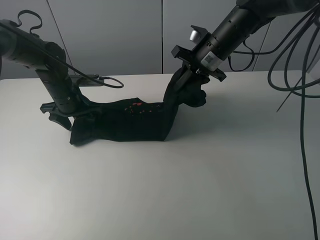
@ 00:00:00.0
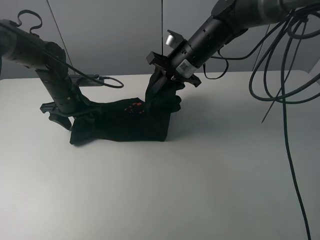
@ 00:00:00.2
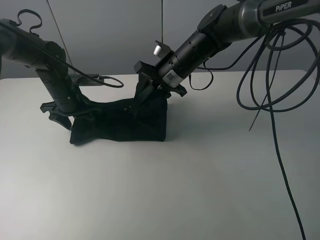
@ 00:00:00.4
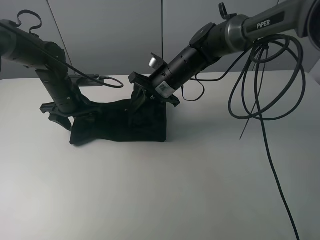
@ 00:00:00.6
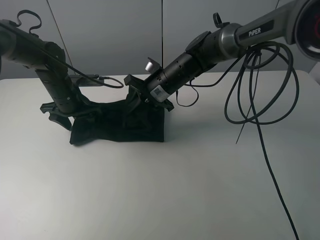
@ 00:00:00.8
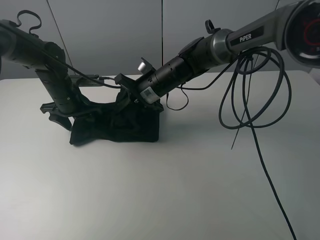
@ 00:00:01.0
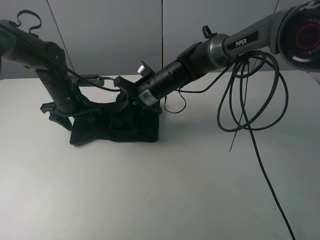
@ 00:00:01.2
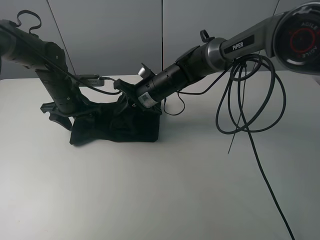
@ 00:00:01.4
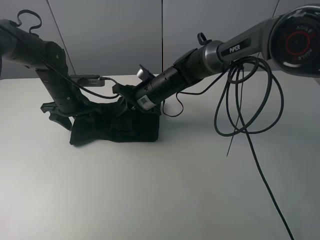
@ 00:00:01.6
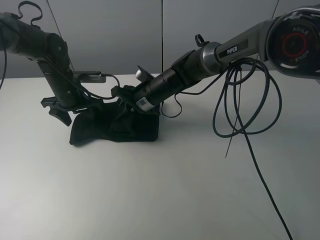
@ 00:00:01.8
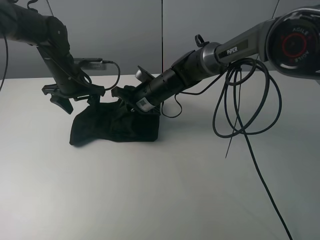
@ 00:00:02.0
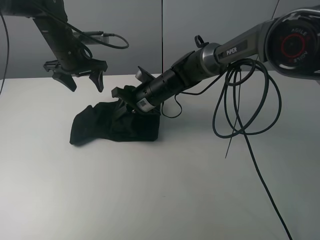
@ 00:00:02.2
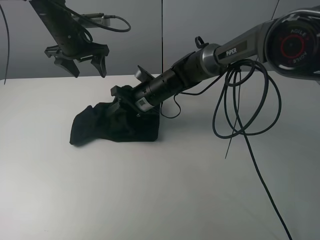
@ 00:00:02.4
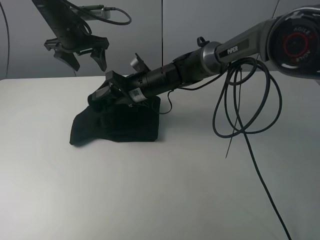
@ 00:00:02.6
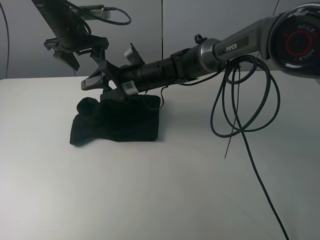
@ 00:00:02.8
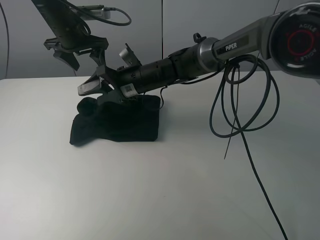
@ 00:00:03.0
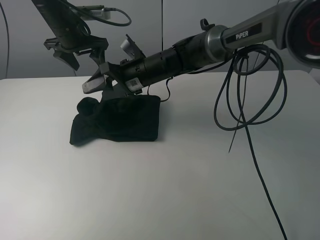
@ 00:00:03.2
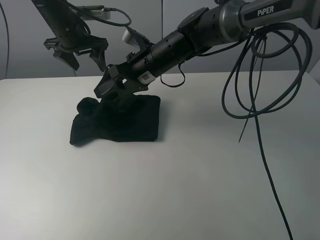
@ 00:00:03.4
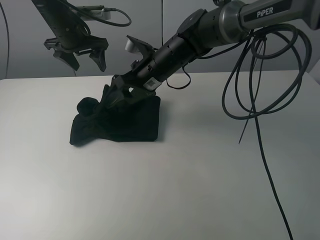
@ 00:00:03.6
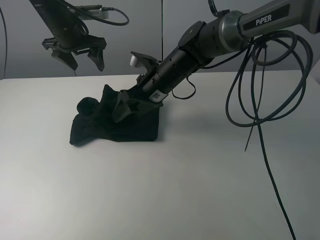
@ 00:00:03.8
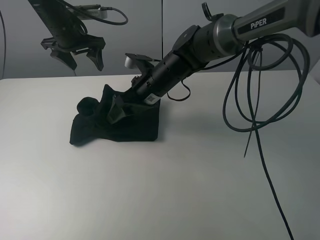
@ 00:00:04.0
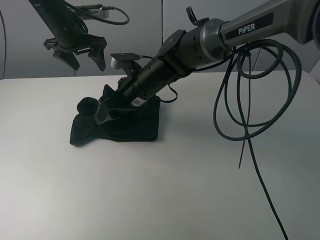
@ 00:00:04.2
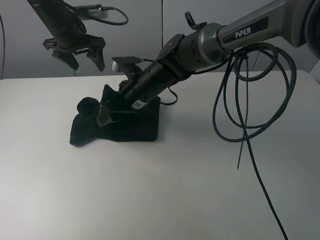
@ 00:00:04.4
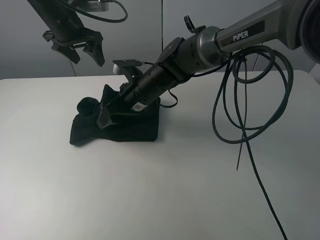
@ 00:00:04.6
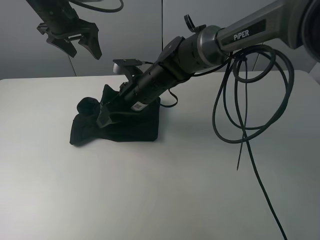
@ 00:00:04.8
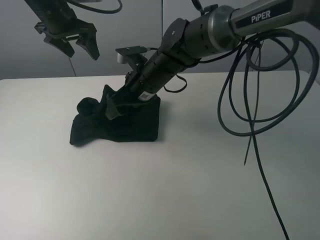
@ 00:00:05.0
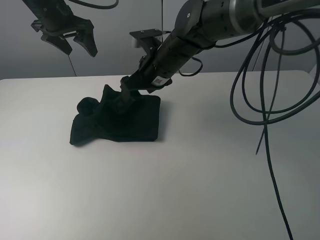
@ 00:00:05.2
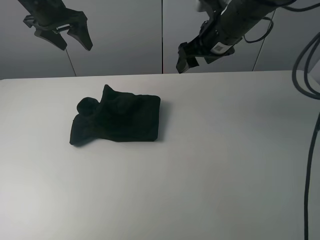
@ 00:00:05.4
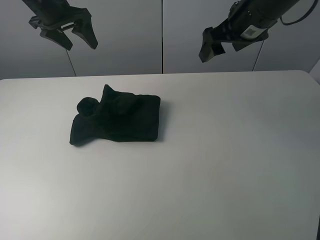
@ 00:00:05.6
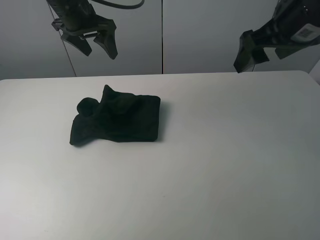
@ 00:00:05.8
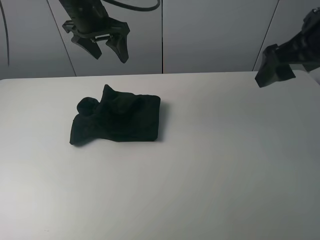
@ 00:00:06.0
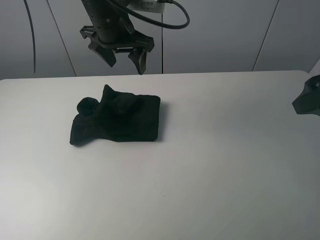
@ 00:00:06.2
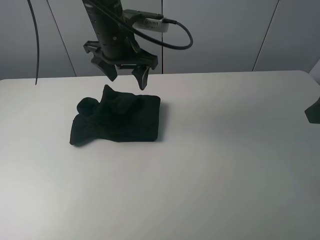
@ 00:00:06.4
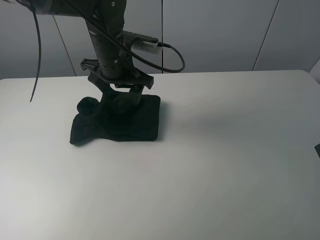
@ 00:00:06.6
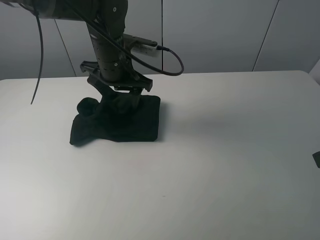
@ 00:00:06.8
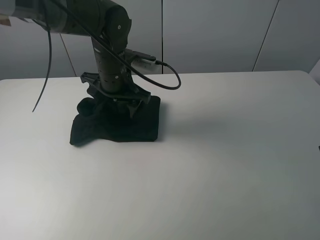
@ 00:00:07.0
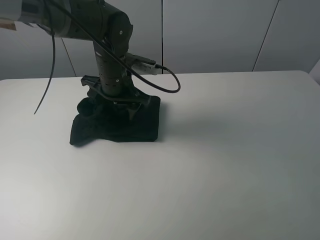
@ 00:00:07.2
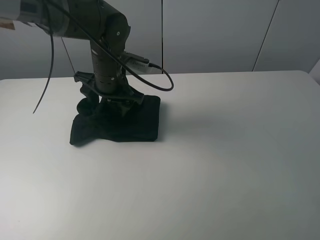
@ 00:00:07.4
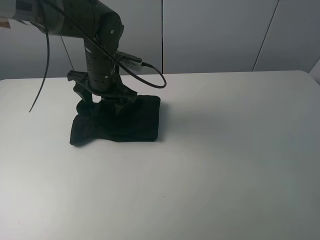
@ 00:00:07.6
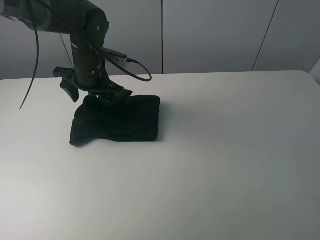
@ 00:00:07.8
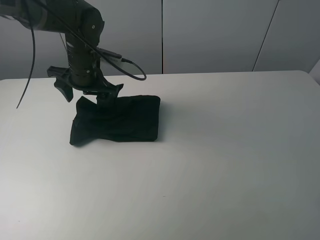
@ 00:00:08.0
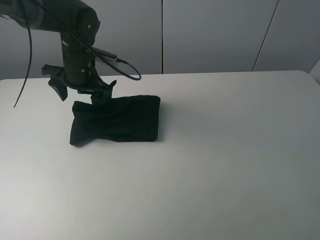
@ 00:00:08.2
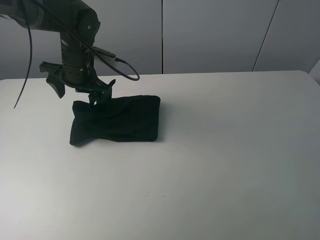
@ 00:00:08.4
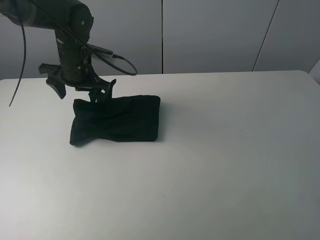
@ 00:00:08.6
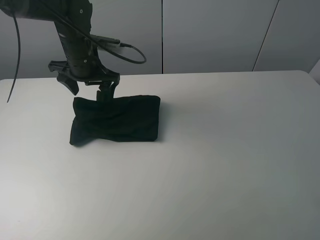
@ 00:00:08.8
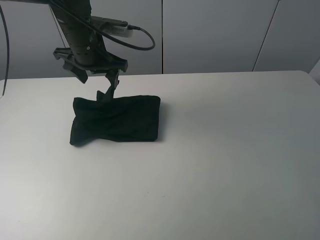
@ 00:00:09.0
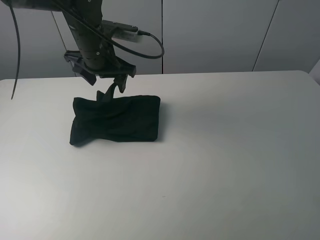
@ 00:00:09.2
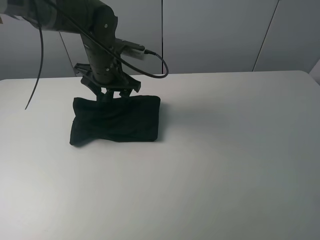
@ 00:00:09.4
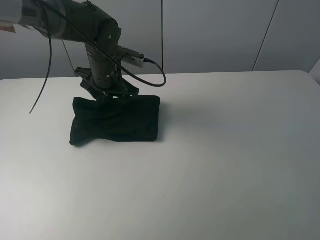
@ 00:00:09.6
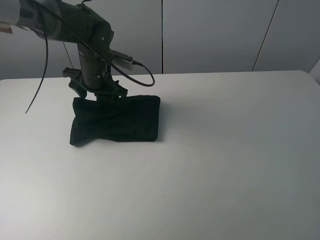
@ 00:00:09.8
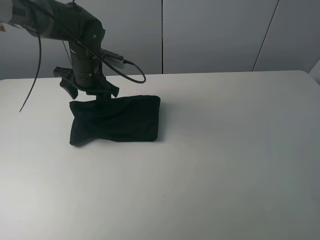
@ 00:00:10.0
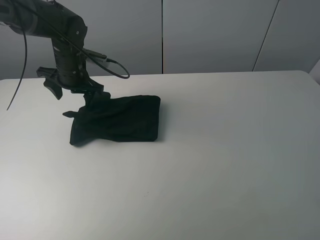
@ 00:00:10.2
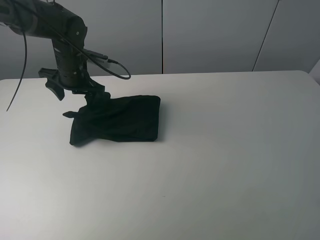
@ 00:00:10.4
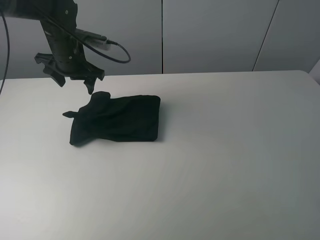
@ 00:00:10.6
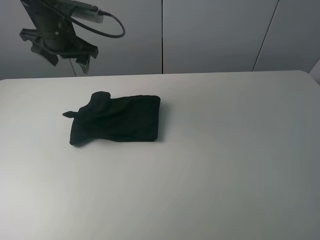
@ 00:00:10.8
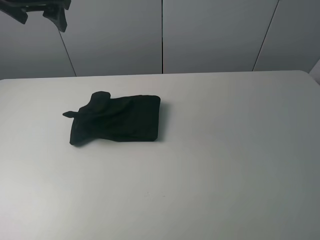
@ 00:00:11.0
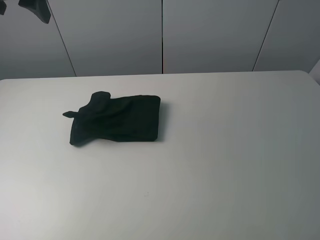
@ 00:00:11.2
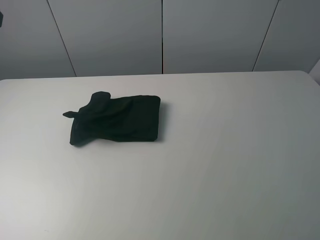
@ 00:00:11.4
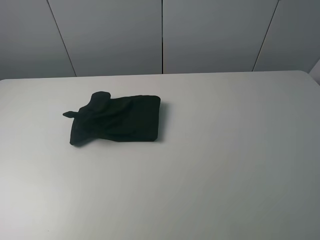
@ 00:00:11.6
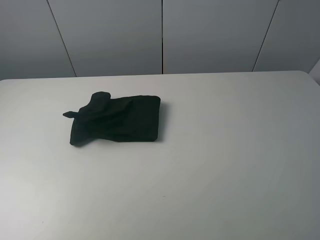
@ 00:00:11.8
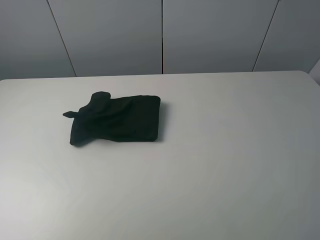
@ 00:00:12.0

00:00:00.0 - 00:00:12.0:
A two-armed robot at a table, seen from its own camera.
Task of the whole recording: fold the clothes on the table.
Step, 00:00:00.0 - 00:00:03.2: Fold the black T-shirt from right to left with right gripper.
Step, 00:00:03.4 - 00:00:09.0: Use the left gripper to tidy up the clothes.
00:00:00.0 - 00:00:01.6: The right gripper shifts roughly 15 cm to the left and downward.
00:00:01.6 - 00:00:03.0: The right gripper changes place by about 5 cm, and opens; the left gripper goes about 15 cm upward and forward.
00:00:04.4 - 00:00:06.0: The left gripper is displaced to the right, backward and upward by roughly 10 cm; the right gripper is displaced to the right, upward and backward by about 35 cm.
00:00:06.0 - 00:00:07.6: The left gripper is displaced downward by roughly 10 cm. Meanwhile the right gripper travels backward by about 15 cm.
00:00:07.6 - 00:00:09.0: The left gripper is displaced upward by about 5 cm.
00:00:09.0 - 00:00:10.4: The left gripper heads downward and to the left, covering roughly 10 cm.
00:00:10.4 - 00:00:12.0: The right gripper is displaced backward by roughly 10 cm. The left gripper goes some 40 cm backward and upward.

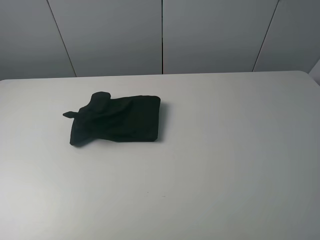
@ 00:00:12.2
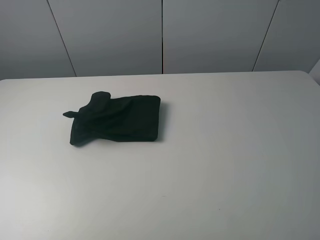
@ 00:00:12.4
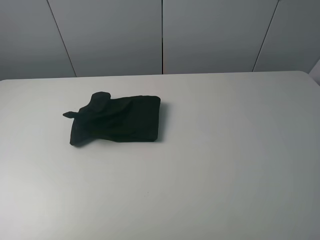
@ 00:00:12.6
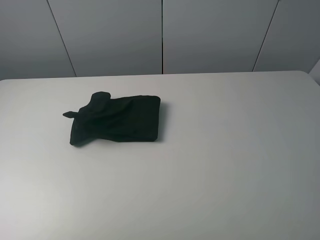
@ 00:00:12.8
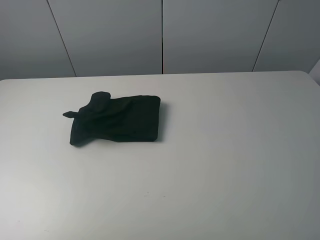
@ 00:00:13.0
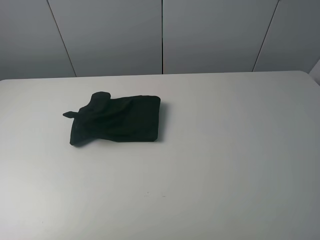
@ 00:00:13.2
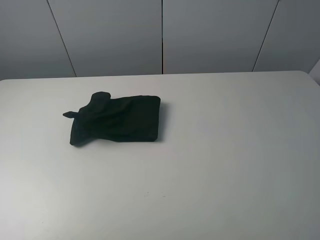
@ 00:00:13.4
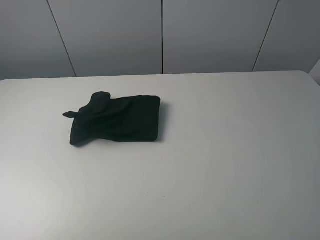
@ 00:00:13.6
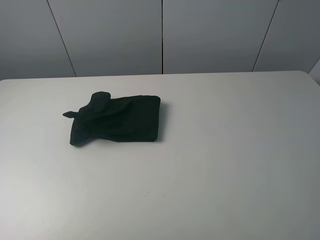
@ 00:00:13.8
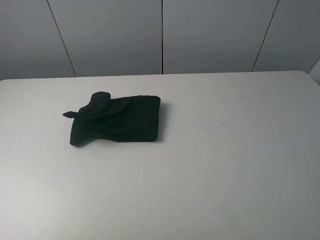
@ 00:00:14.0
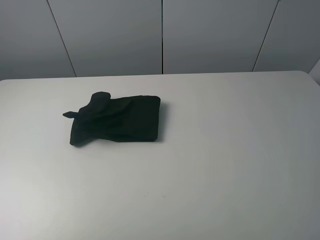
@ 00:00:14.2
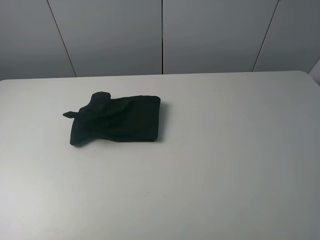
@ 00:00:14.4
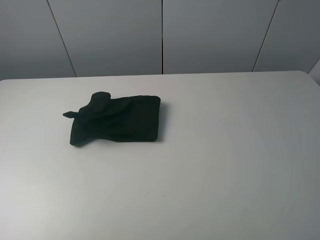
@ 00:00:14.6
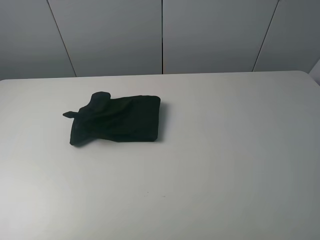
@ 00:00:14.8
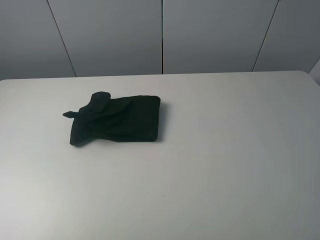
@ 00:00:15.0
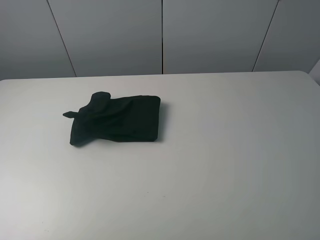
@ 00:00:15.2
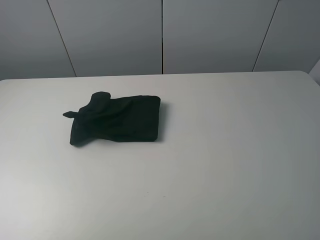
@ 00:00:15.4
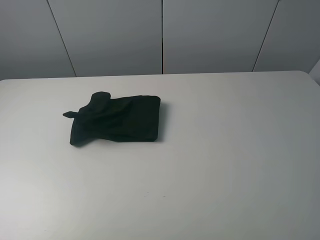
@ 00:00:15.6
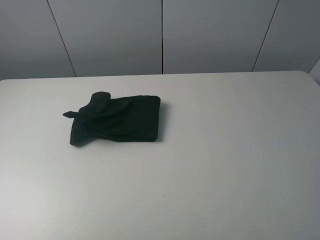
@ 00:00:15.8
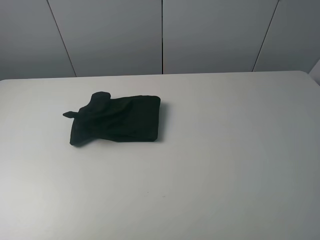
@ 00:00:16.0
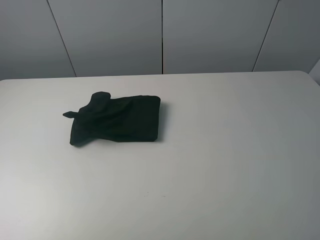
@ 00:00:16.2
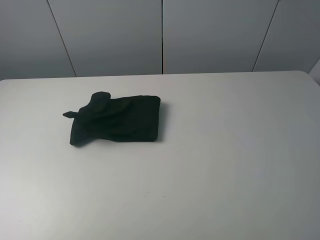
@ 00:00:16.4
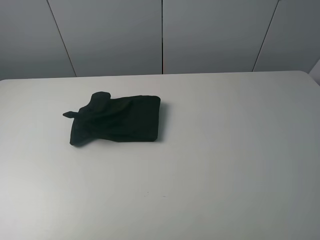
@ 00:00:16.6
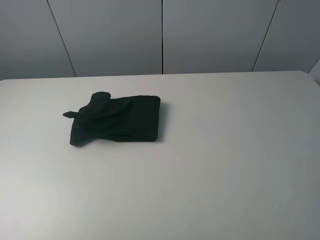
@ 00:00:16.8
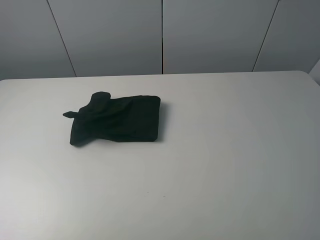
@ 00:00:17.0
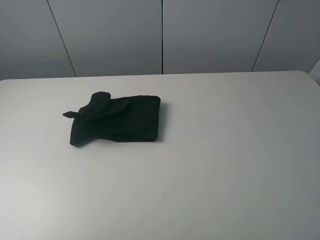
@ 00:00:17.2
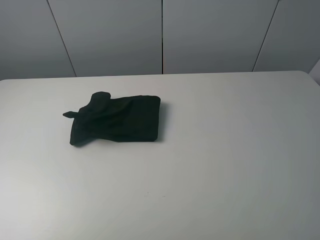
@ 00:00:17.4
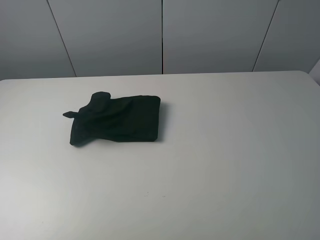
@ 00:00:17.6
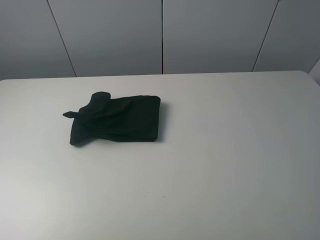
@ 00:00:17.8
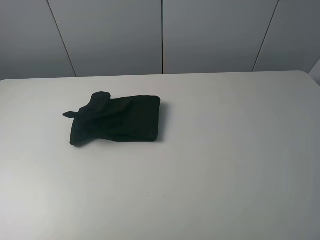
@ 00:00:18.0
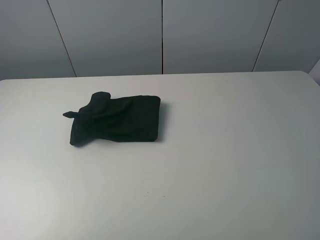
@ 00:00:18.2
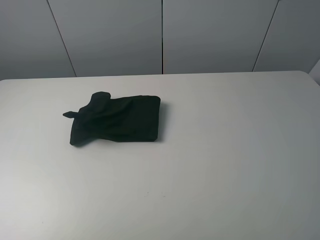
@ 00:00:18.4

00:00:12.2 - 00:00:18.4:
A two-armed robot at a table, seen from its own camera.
Task of the whole recording: fold the clothes on the table.
00:00:15.4 - 00:00:18.4: Both grippers stay put.
